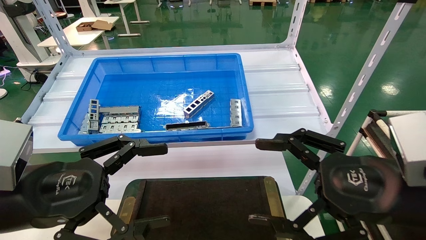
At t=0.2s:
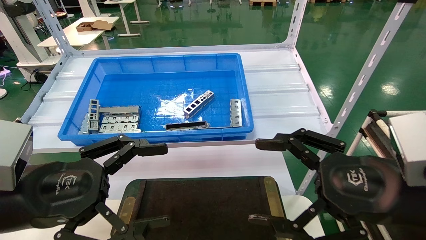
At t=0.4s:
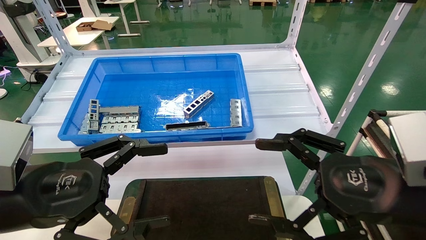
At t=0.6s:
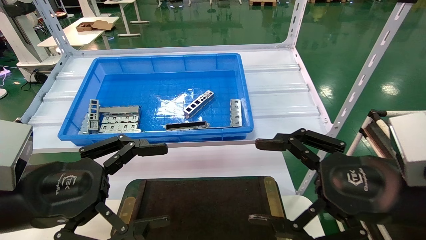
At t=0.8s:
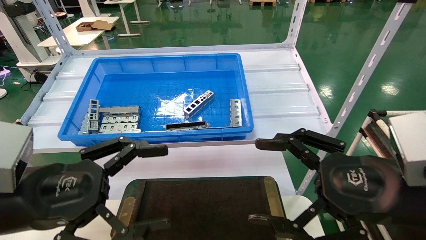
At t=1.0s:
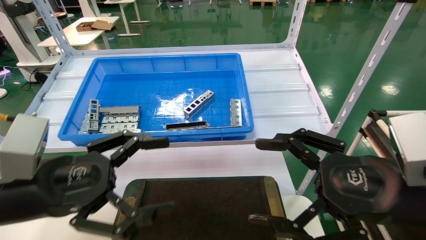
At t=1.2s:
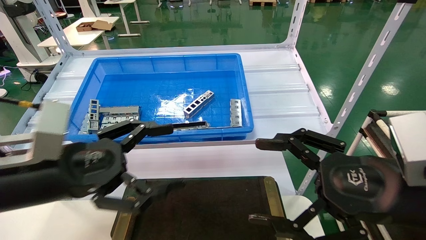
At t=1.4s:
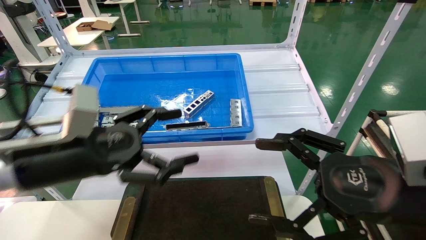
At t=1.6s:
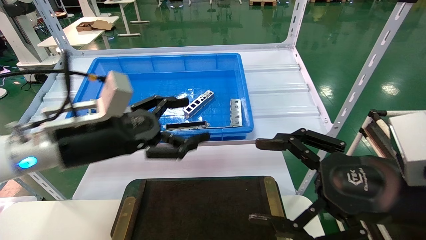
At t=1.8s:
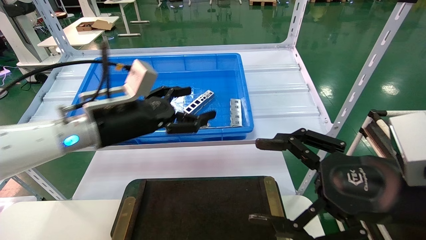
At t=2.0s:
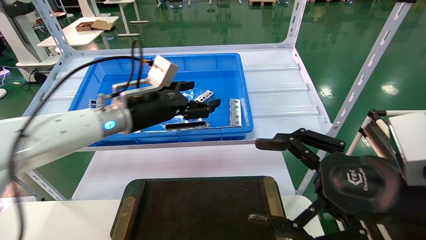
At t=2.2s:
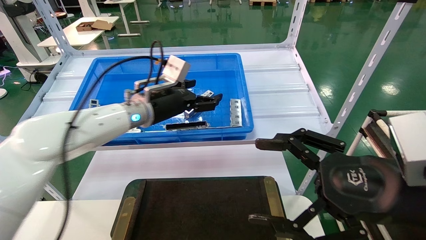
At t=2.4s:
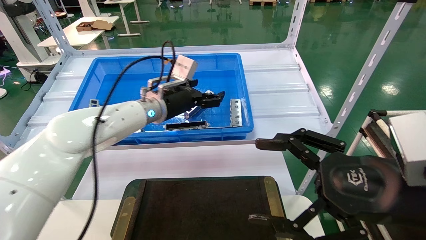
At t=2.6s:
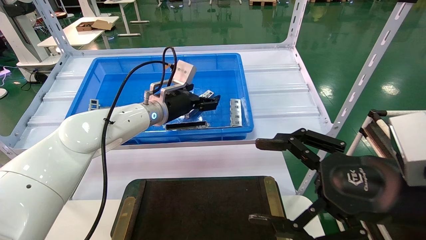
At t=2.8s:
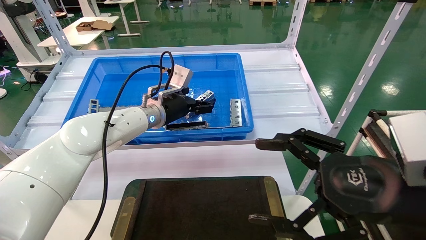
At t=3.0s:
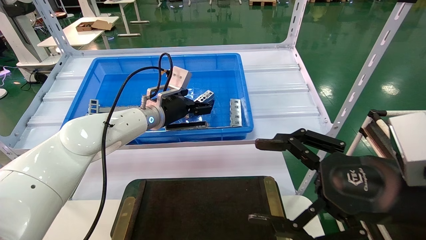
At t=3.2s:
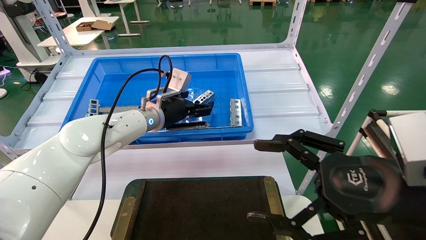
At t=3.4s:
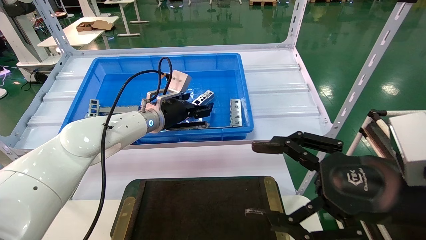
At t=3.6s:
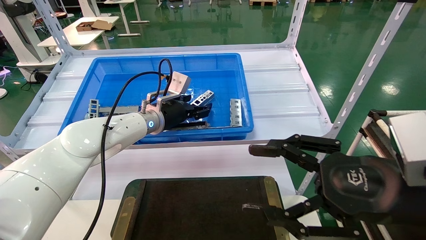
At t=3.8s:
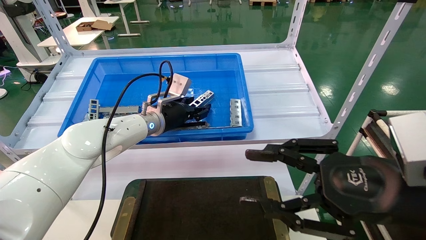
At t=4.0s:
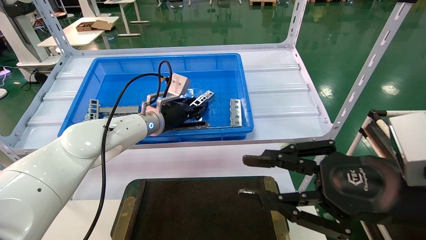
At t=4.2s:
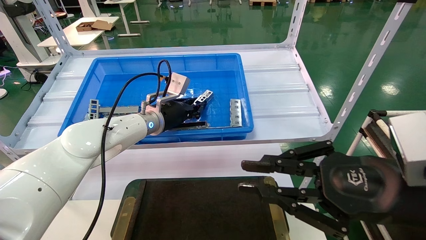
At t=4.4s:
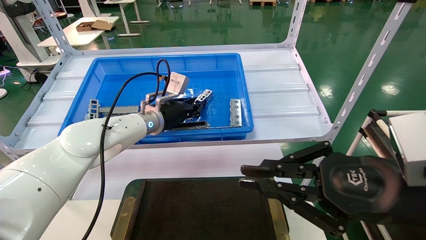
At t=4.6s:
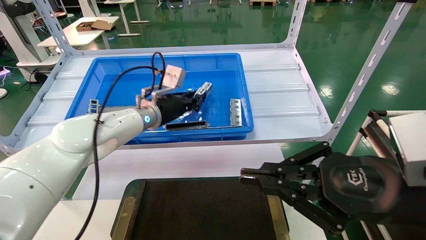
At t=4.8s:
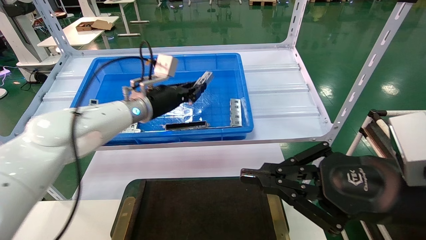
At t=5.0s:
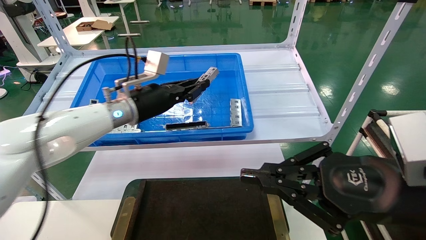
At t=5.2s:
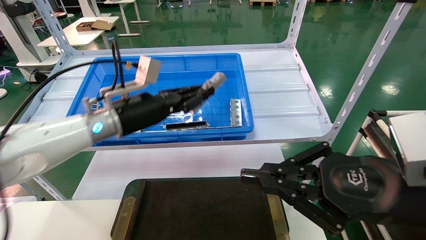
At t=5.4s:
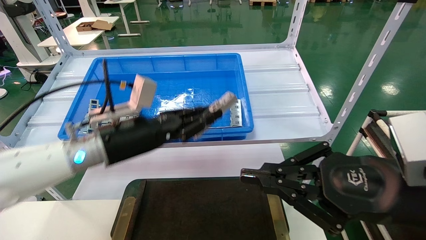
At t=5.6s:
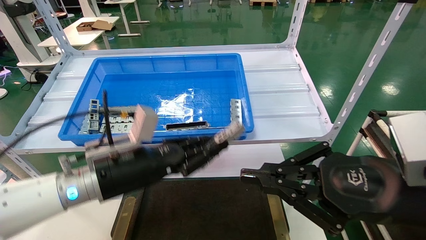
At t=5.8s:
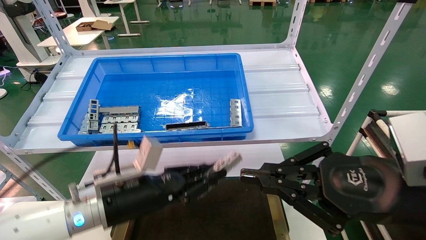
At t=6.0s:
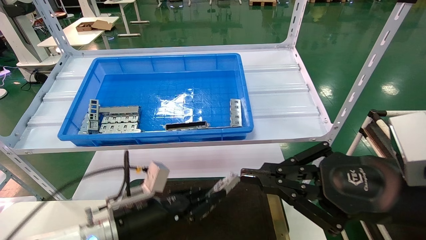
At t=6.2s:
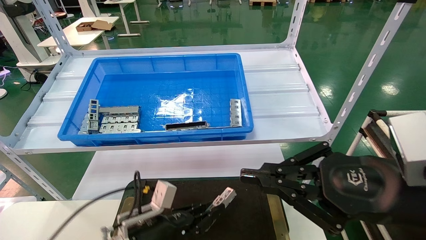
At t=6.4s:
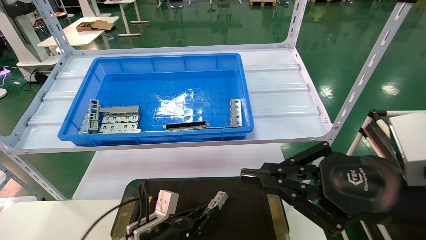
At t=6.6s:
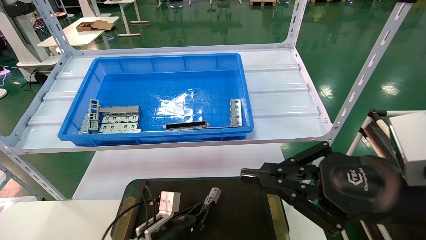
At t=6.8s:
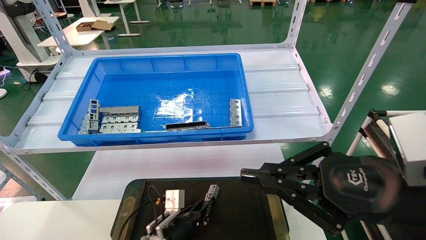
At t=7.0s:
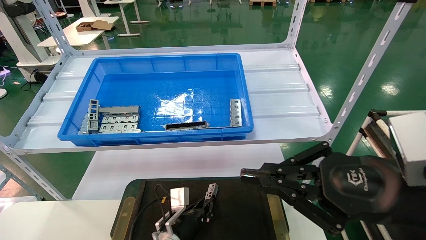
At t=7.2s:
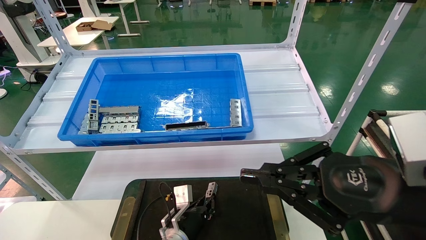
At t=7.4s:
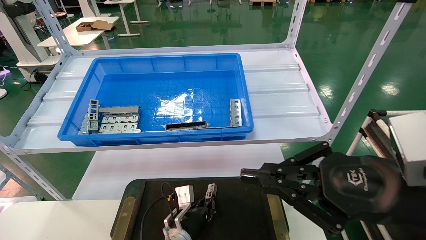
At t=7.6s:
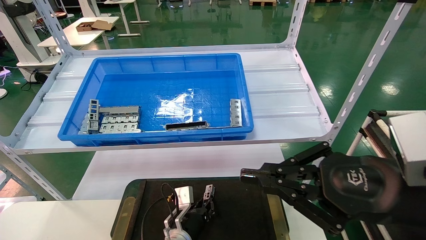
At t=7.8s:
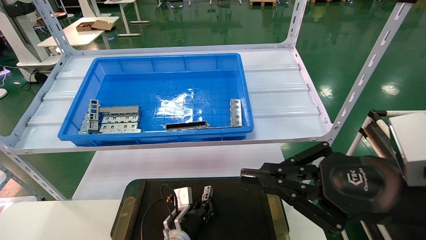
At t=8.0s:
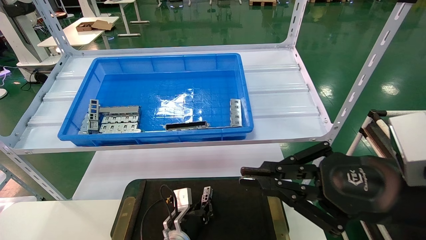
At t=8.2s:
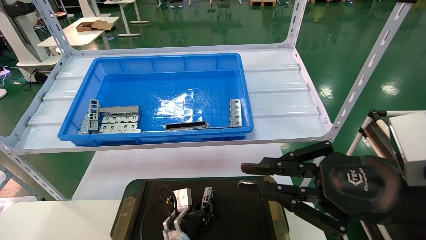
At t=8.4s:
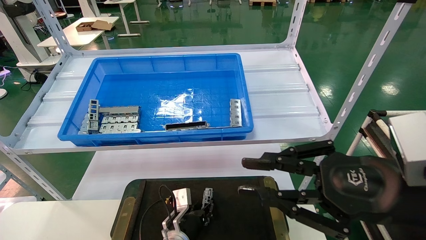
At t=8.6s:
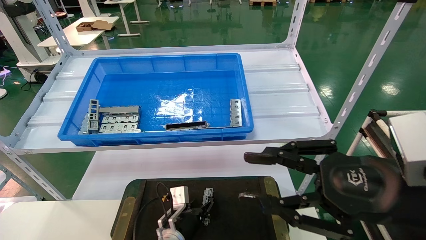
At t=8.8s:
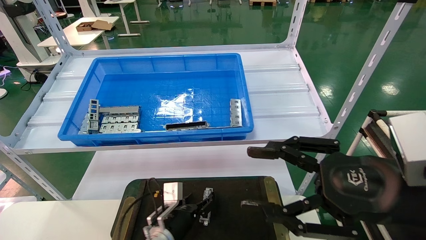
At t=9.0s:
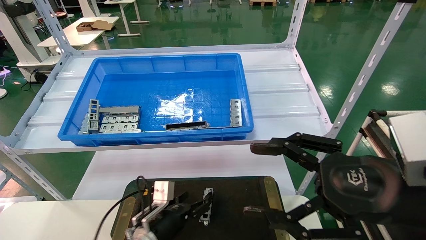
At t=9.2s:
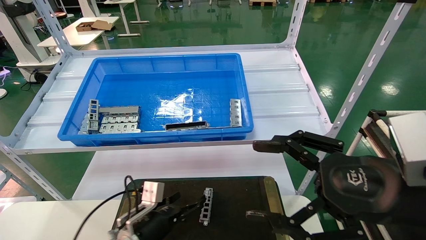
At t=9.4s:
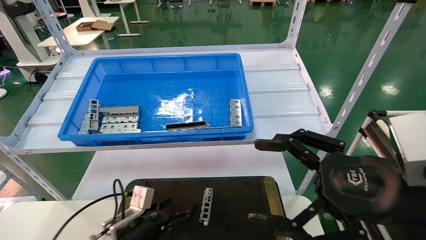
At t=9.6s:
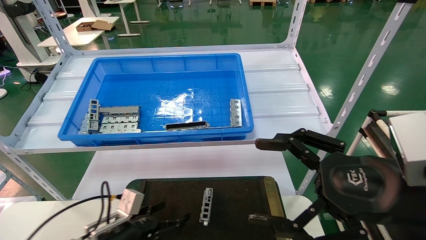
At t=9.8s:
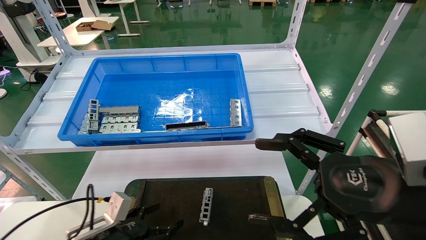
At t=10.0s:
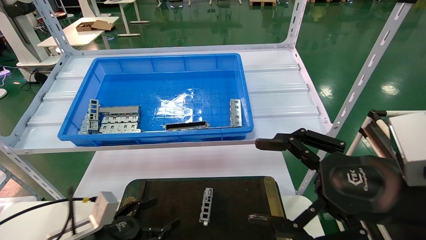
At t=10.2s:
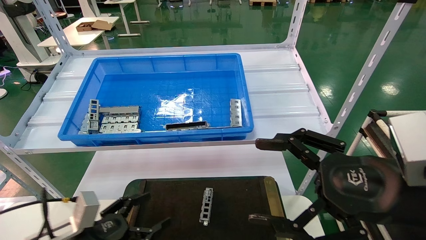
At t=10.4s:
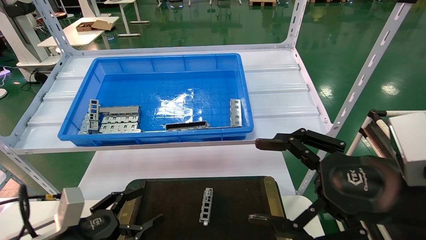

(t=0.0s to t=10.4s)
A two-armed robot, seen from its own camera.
Task of the whole recording: Grasp the part with one hand and place it on the black container.
Step, t=1.2s - t=4.0s: Pick up the front USB bracket from the feeding area.
Step, t=4.2s - t=8.0s: Place the front USB bracket into the box.
t=0.0s - t=1.4s: The left gripper moves forward, some 5 cm.
t=1.4s - t=3.0s: The left gripper heads forward and to the right, covering approximately 25 cm.
t=3.0s - t=4.4s: The left gripper closes its fingers. Meanwhile the right gripper closes up.
t=4.4s - t=6.0s: The left gripper shifts roughly 25 cm backward and downward.
t=6.0s - t=7.4s: The left gripper heads downward, to the right and forward, covering some 20 cm.
t=7.4s - t=9.0s: The left gripper shifts some 5 cm to the left, and opens up; the right gripper opens up.
t=9.0s - t=10.4s: The left gripper shifts approximately 20 cm to the left, backward and upward.
